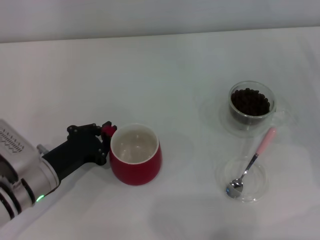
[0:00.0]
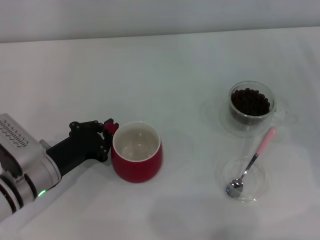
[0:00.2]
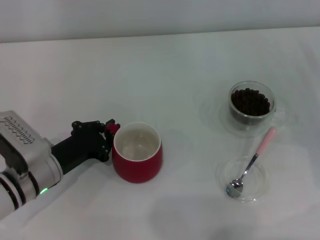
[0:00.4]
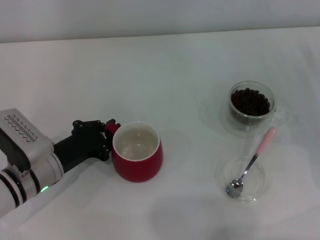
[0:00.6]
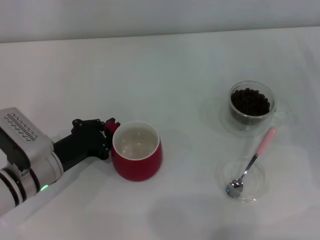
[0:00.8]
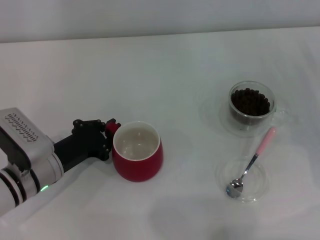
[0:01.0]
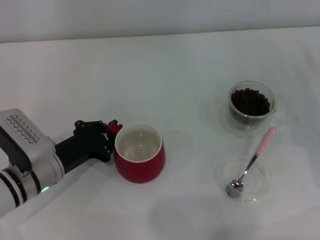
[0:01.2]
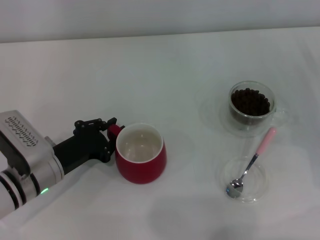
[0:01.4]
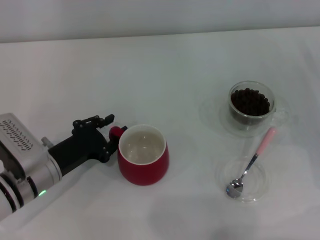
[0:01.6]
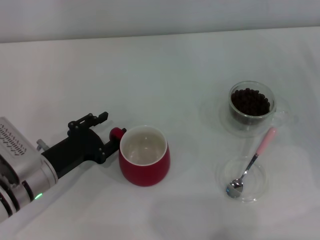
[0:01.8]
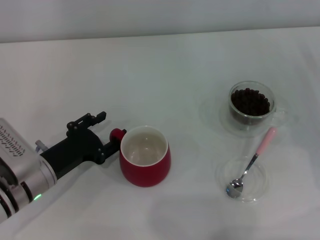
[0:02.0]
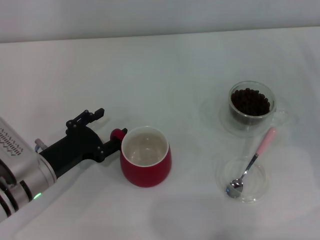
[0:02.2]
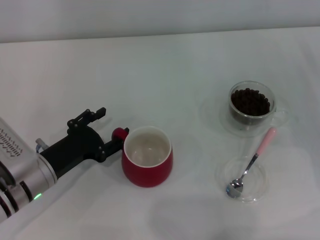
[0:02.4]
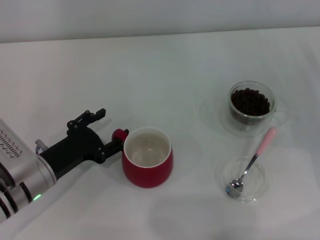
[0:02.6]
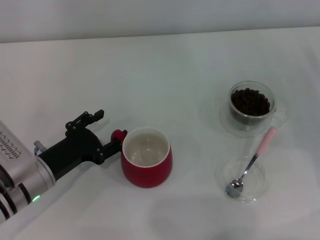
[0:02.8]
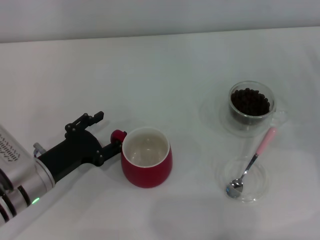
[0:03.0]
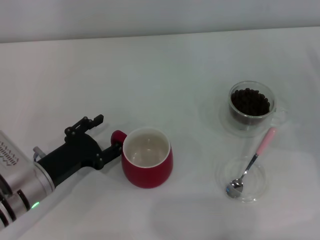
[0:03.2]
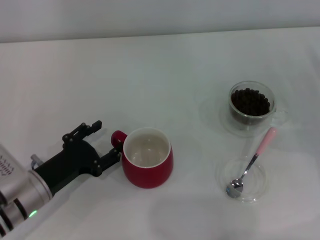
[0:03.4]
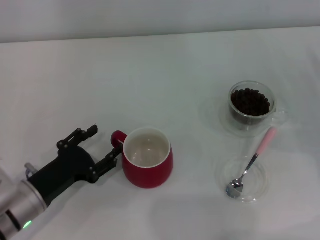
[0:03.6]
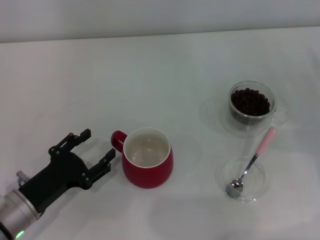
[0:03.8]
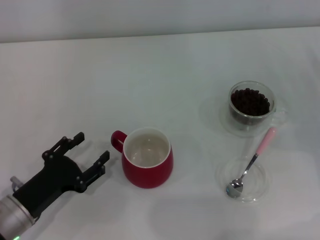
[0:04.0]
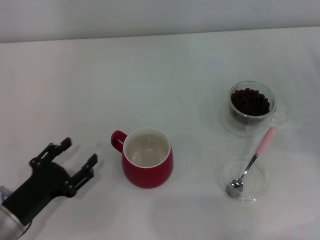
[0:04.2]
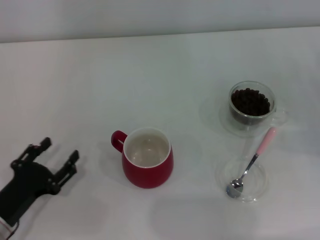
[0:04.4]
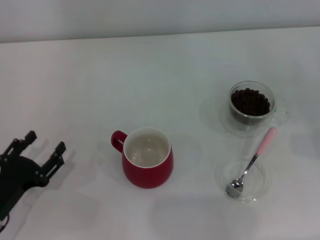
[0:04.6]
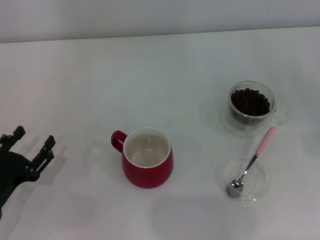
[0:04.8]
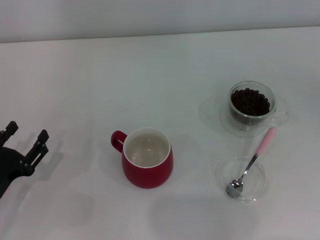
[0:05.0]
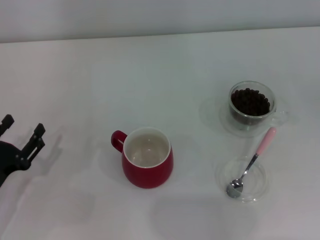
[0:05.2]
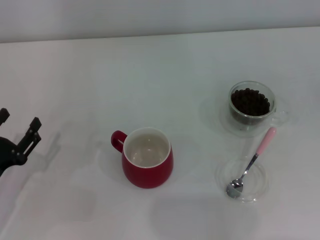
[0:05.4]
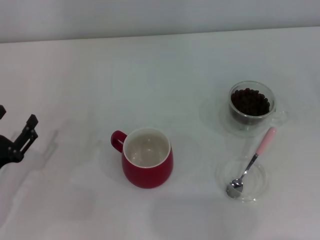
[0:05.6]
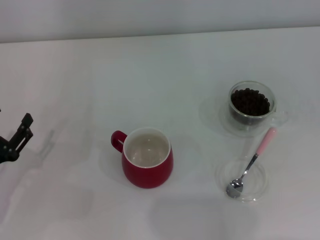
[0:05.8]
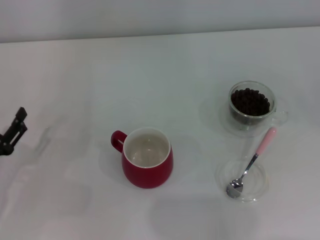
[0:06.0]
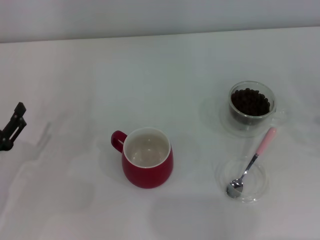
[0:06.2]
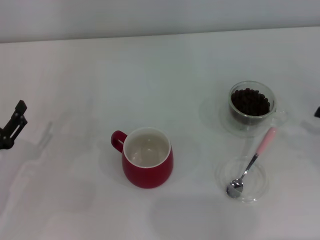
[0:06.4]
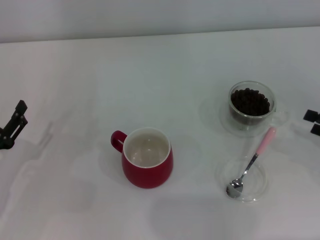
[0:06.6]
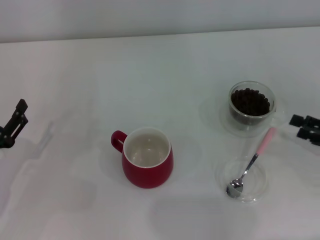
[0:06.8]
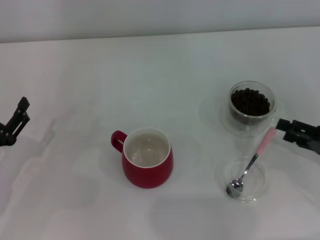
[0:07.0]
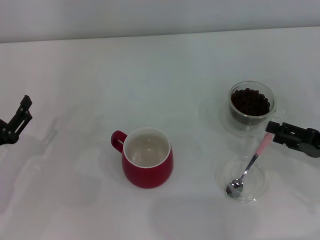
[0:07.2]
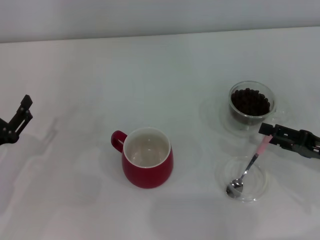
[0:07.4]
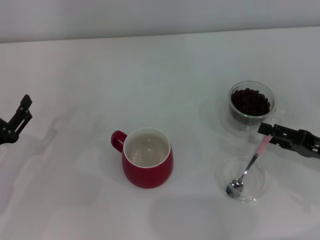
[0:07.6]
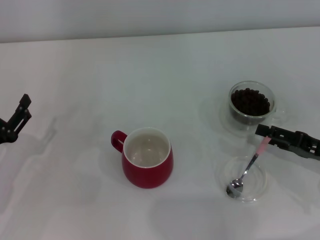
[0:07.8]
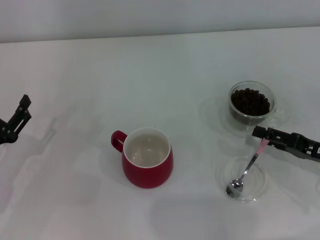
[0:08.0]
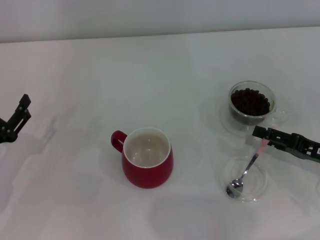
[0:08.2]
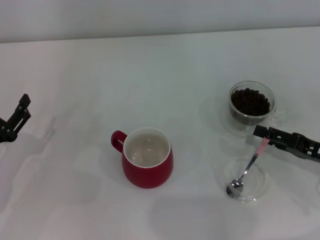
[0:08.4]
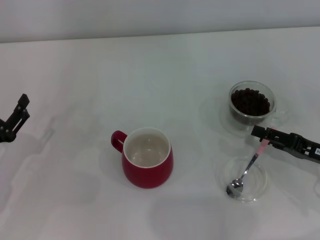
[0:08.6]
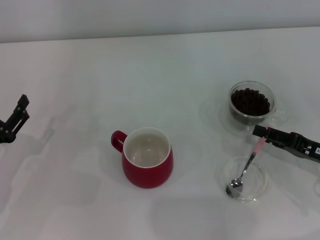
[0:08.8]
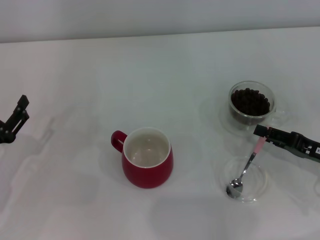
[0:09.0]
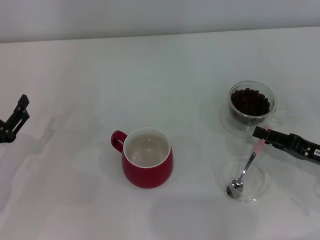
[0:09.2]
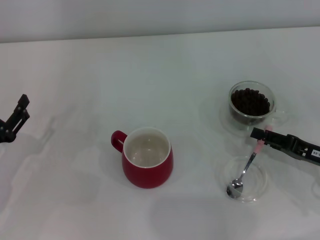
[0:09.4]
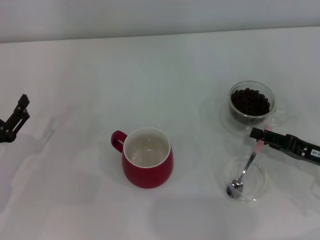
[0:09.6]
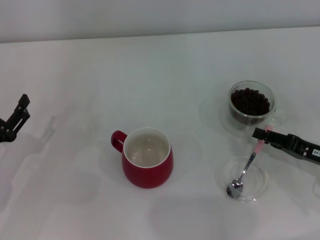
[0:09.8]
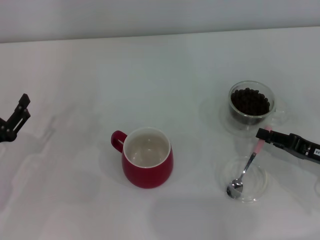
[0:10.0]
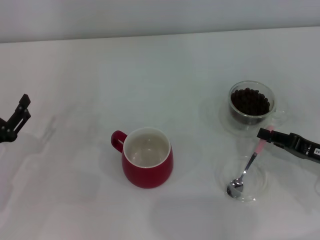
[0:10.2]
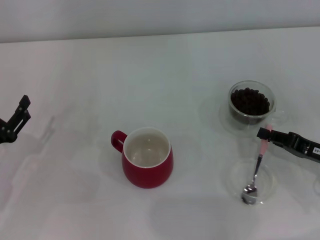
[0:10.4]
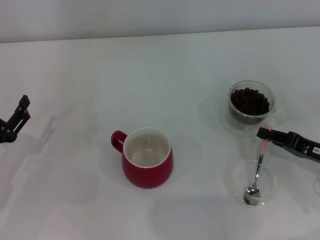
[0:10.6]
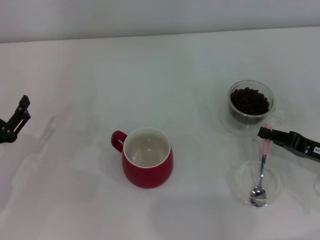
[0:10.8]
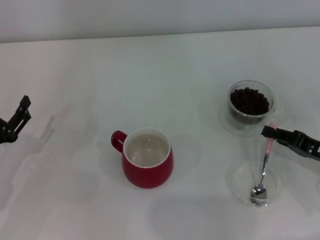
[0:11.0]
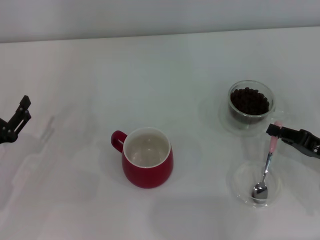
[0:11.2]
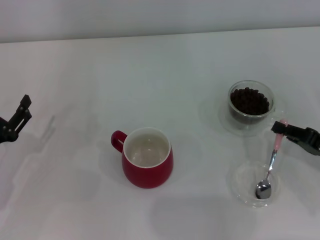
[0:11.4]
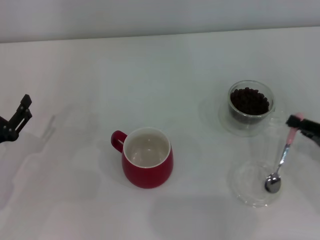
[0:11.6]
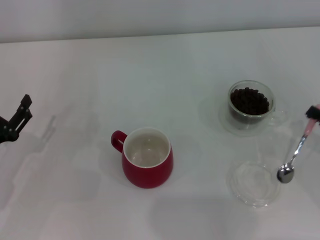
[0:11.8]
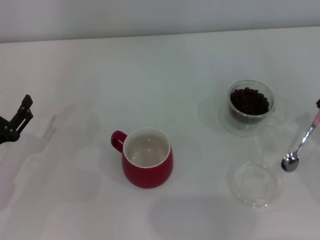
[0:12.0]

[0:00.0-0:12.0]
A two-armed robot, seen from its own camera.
Task of the whole recording: Use a pink spoon to take out the coffee beans from the glass and pour them into the red cup.
Step, 0:00.0 to 0:04.0: Move the cup to the center of view with the left gripper.
Step, 0:04.2 to 0:11.6: Pick up the spoon with the right gripper.
0:00.0 to 0:01.6: There are only small adjustments of the grippers.
0:01.6 to 0:03.0: The left gripper opens its fingers.
0:03.0 to 0:04.4: The left gripper travels backward by roughly 5 cm.
0:04.4 to 0:06.0: The left gripper ends up about 5 cm from where it was.
0:06.0 to 0:07.6: The right gripper moves to the left, roughly 15 cm.
0:07.6 to 0:09.0: The grippers move only a little.
0:09.0 to 0:10.4: The right gripper closes.
0:10.4 to 0:12.0: The right gripper shifts by some 5 cm.

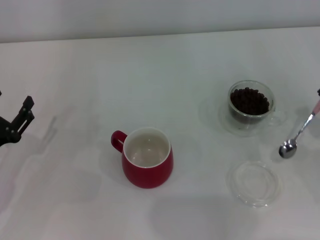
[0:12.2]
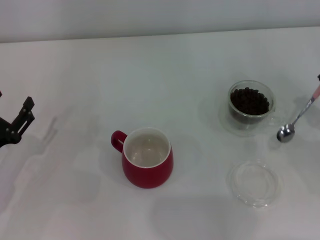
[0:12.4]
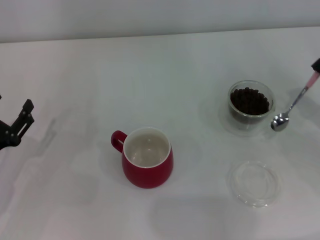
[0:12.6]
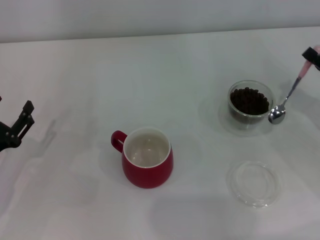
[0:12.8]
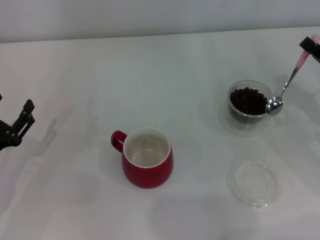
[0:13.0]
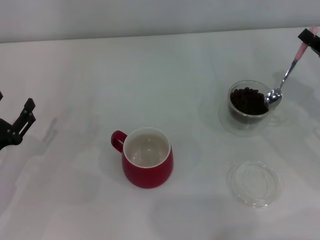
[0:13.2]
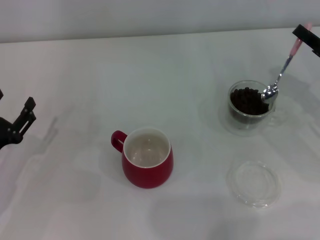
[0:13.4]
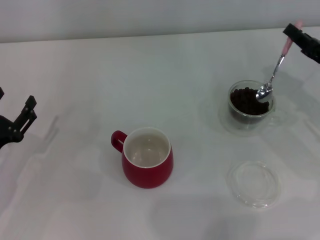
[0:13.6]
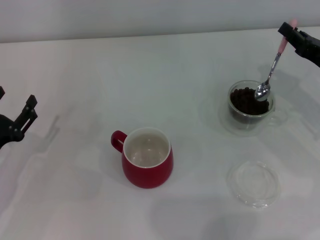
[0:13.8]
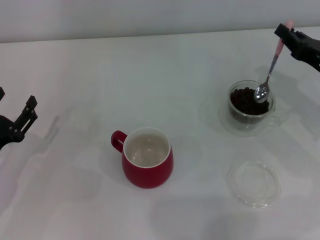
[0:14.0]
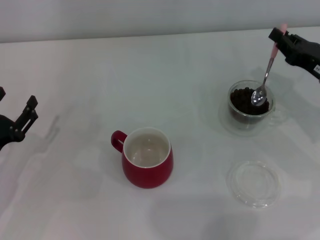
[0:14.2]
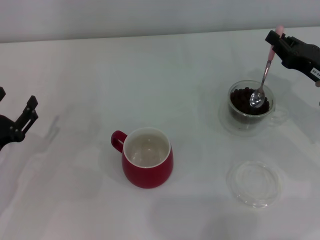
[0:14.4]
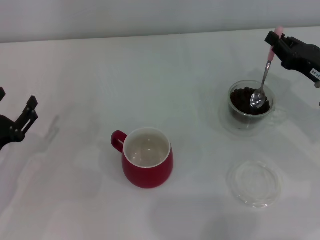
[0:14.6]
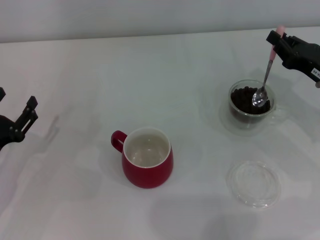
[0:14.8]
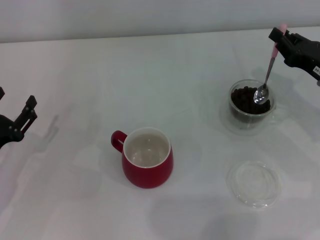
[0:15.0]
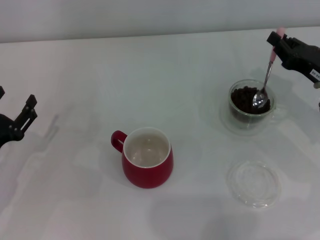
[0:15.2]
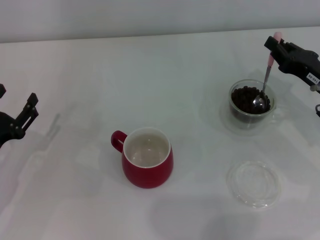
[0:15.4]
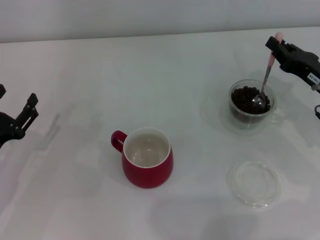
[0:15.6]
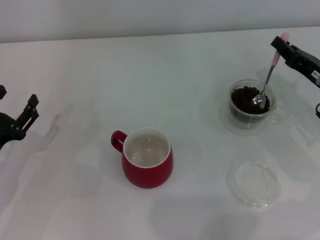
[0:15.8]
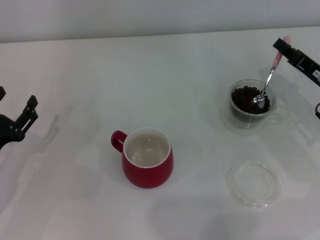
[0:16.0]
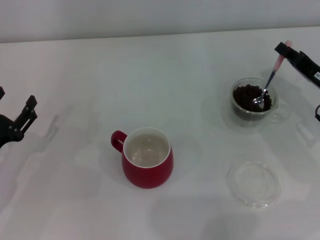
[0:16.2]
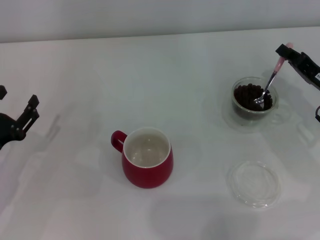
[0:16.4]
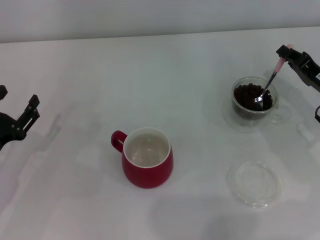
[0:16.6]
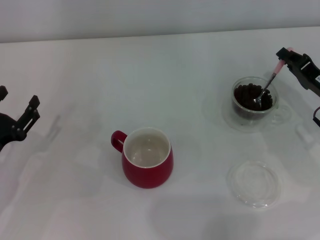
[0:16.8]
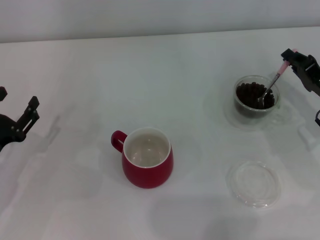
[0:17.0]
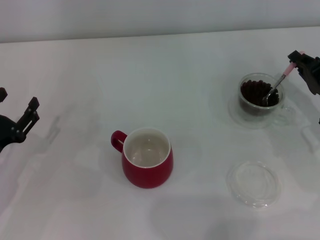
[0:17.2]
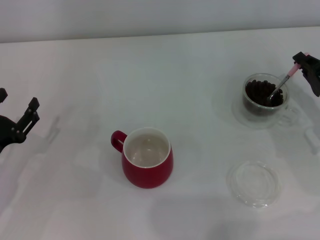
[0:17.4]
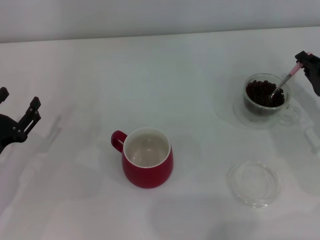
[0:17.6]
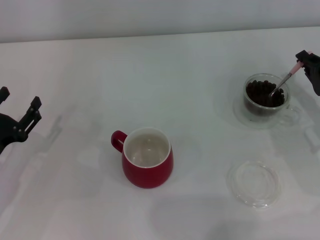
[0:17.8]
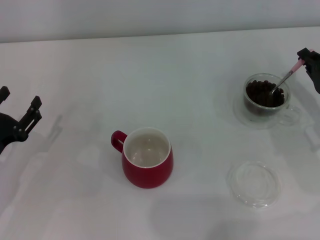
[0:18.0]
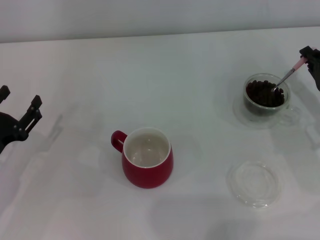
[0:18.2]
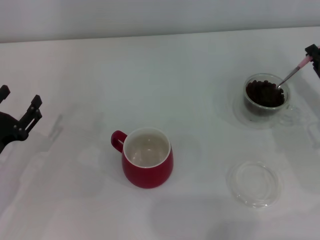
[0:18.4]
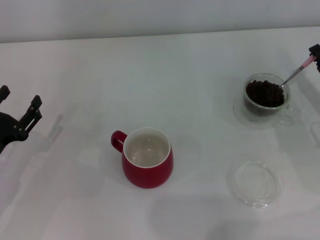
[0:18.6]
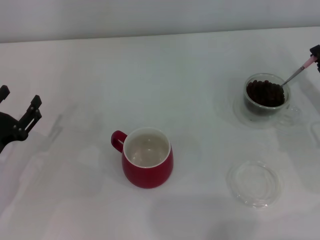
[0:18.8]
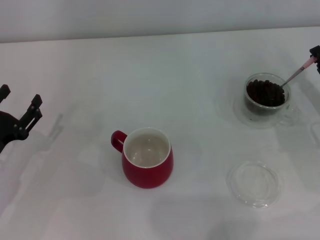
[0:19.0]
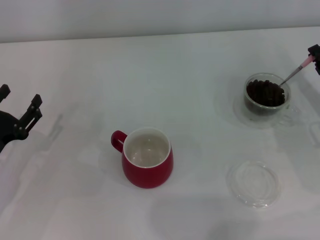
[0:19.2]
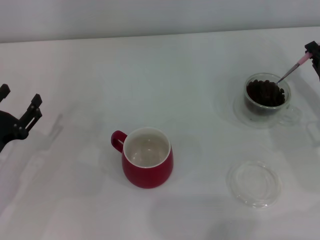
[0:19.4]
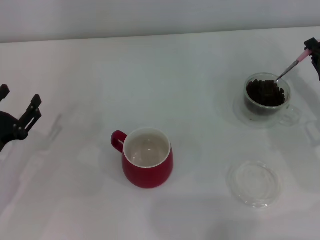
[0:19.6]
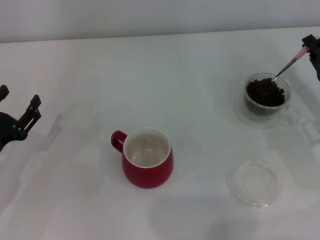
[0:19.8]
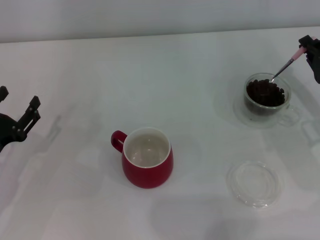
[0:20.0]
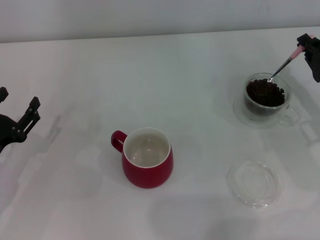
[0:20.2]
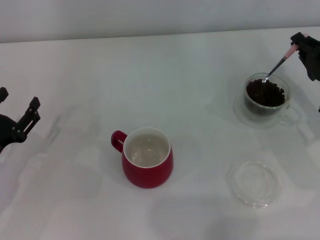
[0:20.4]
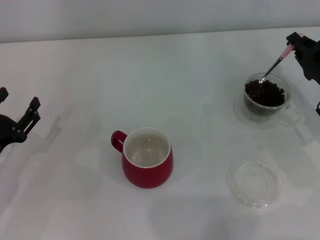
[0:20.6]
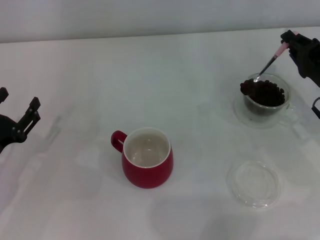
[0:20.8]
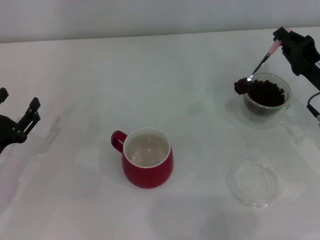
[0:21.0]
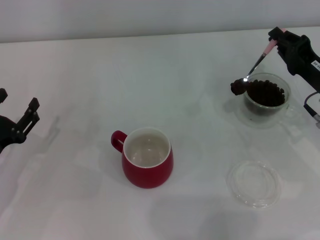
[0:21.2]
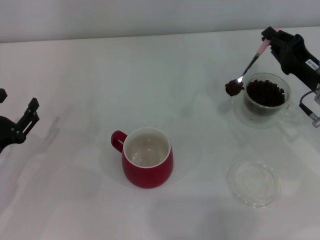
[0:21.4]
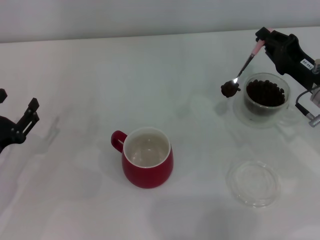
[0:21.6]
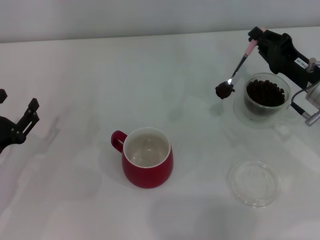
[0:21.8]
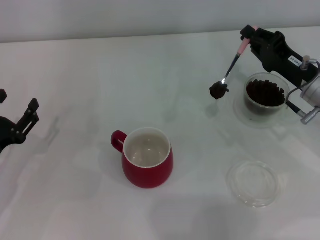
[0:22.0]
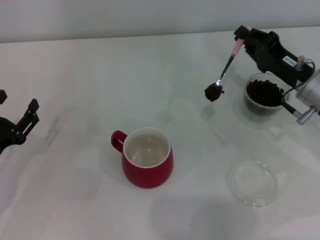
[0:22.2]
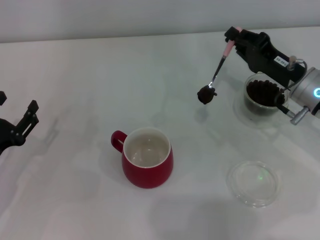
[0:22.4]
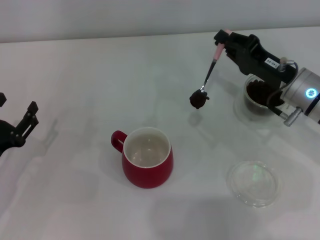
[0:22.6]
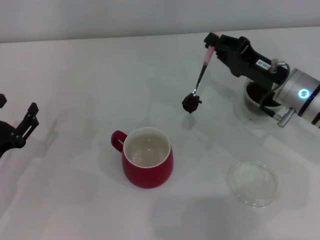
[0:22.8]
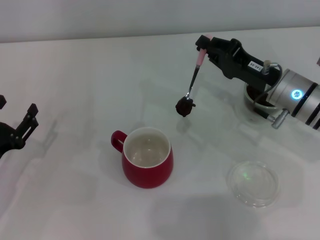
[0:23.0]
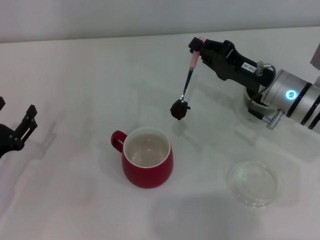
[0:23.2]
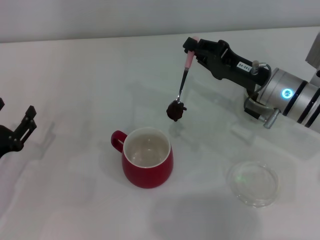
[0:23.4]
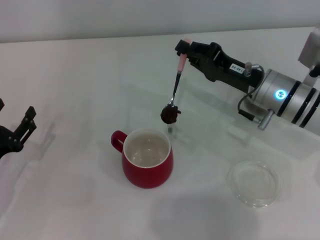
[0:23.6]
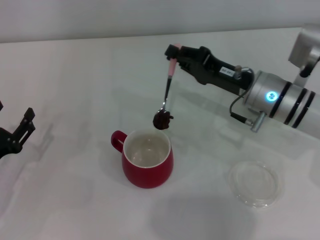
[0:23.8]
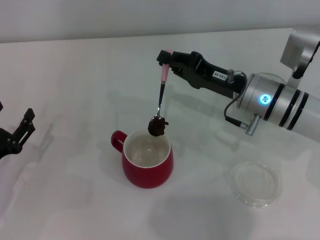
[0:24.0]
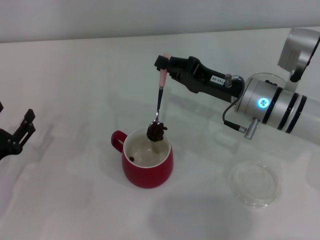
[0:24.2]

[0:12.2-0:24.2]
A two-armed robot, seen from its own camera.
Task of the whole recording: Use a pink spoon to take out the coffee beans from the glass and pour them into the red cup.
0:12.2 to 0:13.8: The right gripper travels forward by approximately 10 cm.
0:13.8 to 0:15.2: The grippers stay close to where they were, moving slightly.
0:16.6 to 0:18.2: The grippers make only small movements.
0:18.2 to 0:19.8: Neither gripper changes place.
0:19.8 to 0:21.2: There are only small adjustments of the grippers.
0:21.2 to 0:22.6: The right gripper travels to the left by roughly 5 cm.
0:22.6 to 0:24.2: The right gripper shifts about 5 cm to the left.
